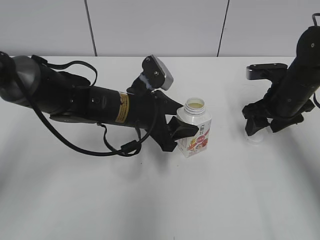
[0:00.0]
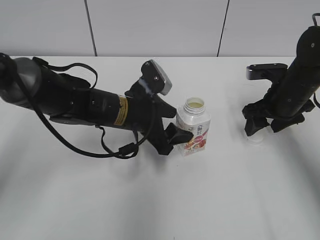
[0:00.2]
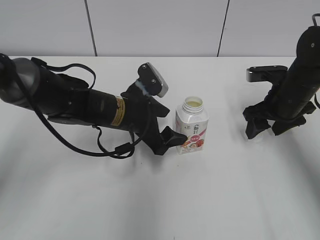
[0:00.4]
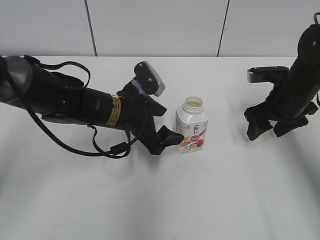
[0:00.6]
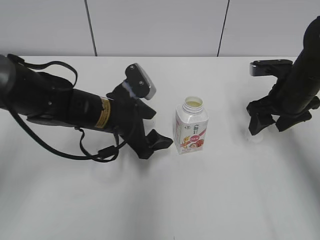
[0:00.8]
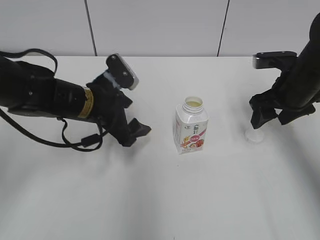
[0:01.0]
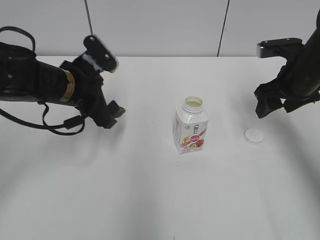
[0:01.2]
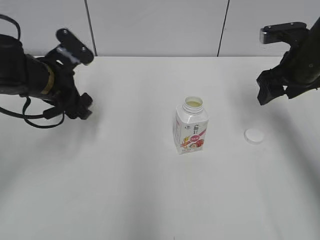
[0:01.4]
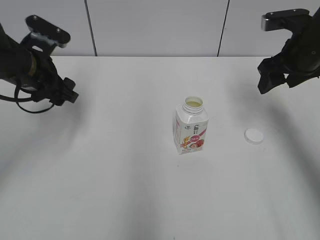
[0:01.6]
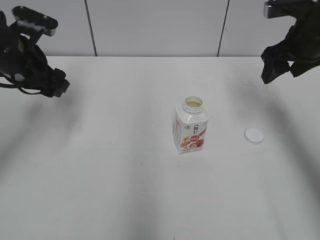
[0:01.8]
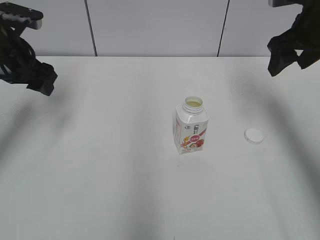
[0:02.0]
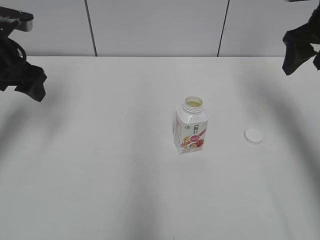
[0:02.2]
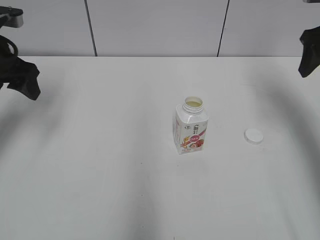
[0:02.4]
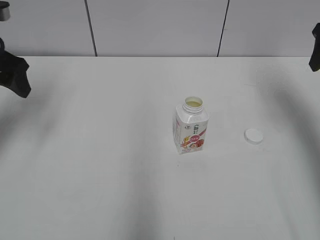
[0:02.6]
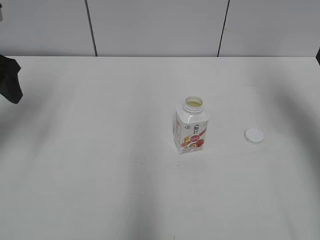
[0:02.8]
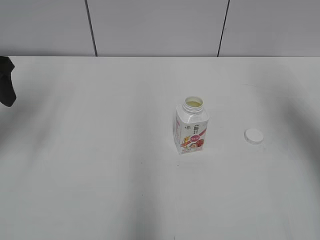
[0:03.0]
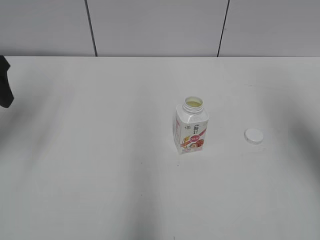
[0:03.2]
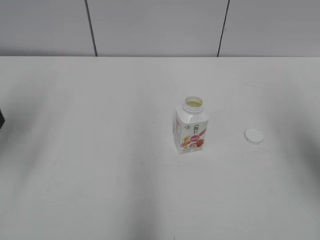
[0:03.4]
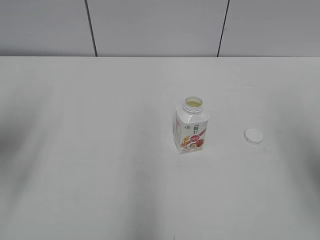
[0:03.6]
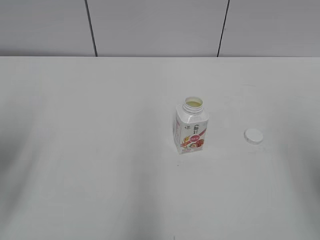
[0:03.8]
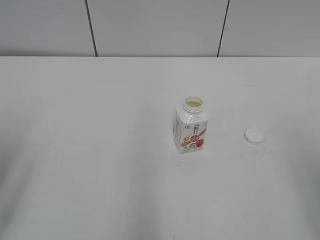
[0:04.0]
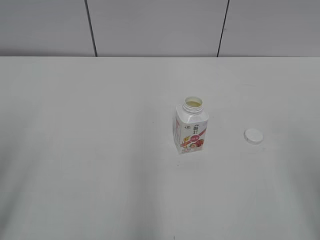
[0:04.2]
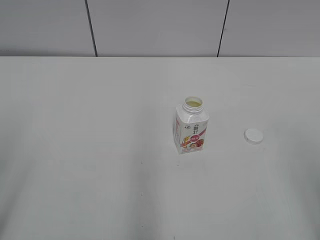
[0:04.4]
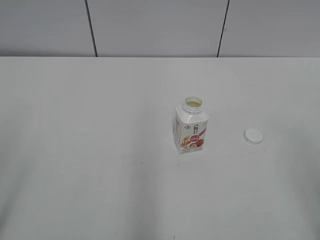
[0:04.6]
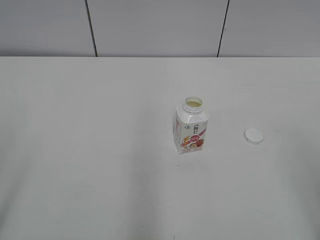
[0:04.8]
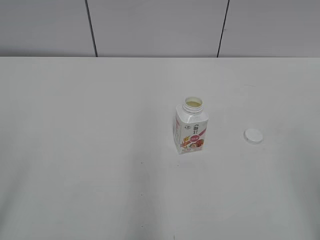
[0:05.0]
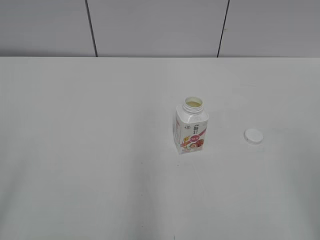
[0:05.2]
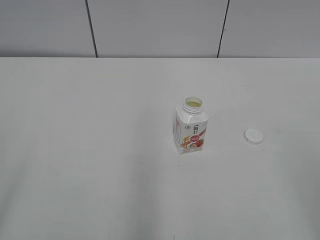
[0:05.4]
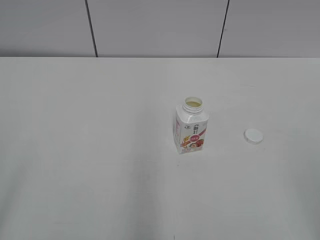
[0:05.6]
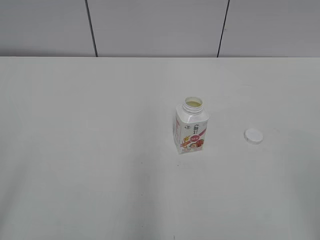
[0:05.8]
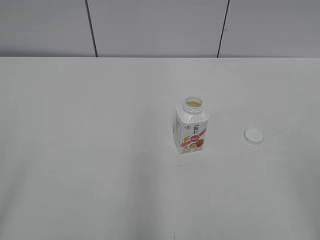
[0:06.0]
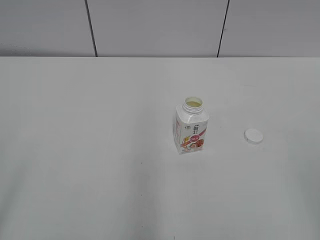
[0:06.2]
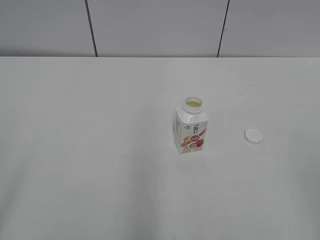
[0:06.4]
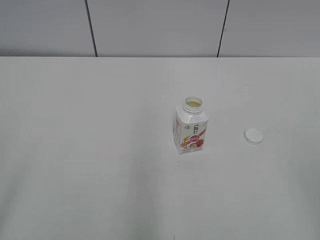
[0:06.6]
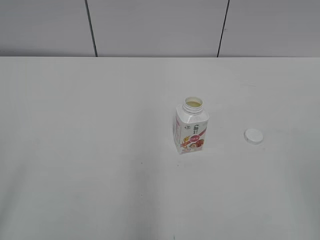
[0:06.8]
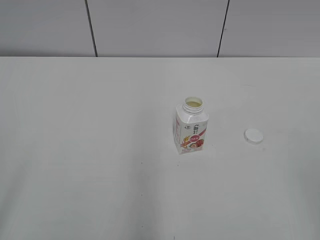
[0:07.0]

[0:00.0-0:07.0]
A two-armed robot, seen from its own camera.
Step, 0:00.2 to 0:00.6: Place the Yili Changqing with the left hand.
0:00.0 to 0:01.4: The left gripper goes about 15 cm to the left and upward, and opens its fingers; the right gripper travels upward by approximately 5 cm.
0:01.4 to 0:02.8: The right gripper travels upward and to the right by some 15 cm. The left gripper moves to the left and upward, approximately 15 cm.
0:02.8 to 0:04.2: Both grippers move backward, about 25 cm.
0:05.6 to 0:07.0: Both grippers stay put.

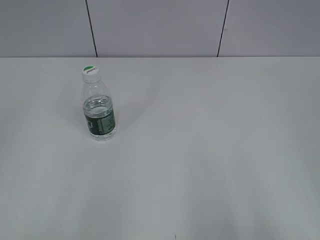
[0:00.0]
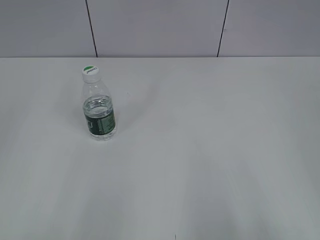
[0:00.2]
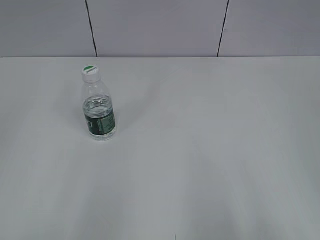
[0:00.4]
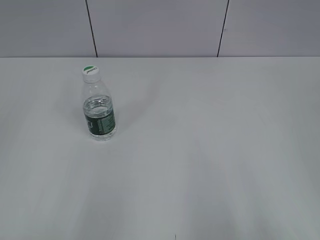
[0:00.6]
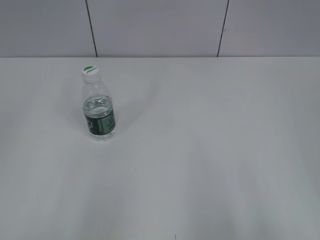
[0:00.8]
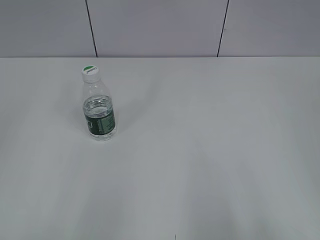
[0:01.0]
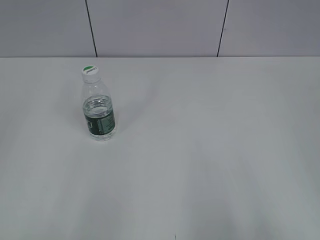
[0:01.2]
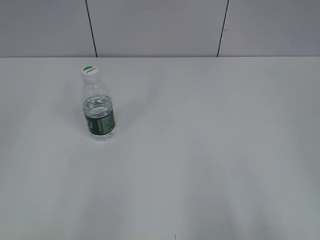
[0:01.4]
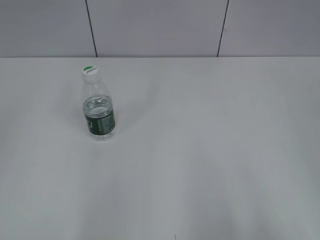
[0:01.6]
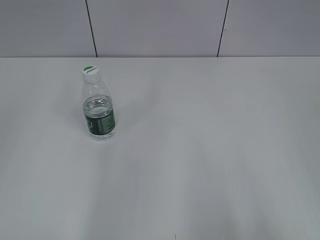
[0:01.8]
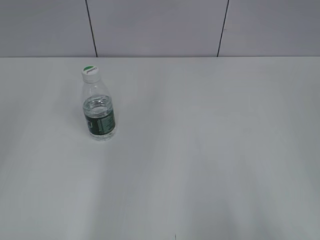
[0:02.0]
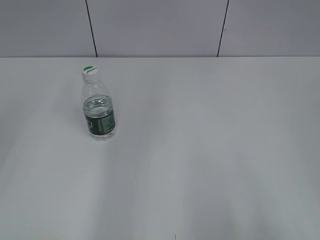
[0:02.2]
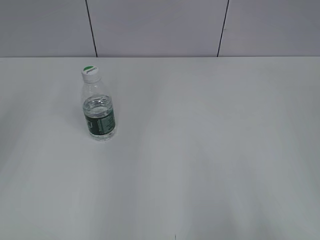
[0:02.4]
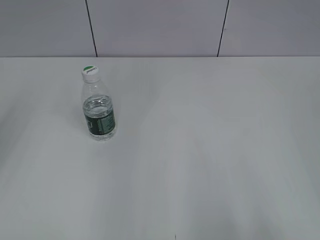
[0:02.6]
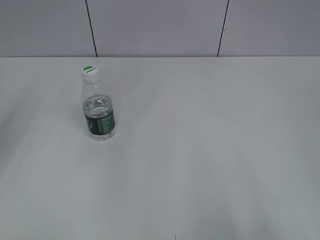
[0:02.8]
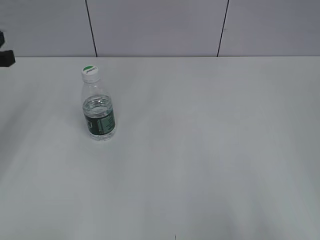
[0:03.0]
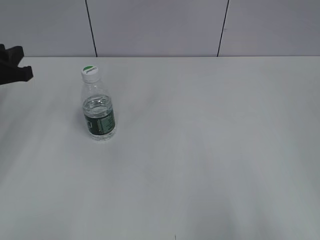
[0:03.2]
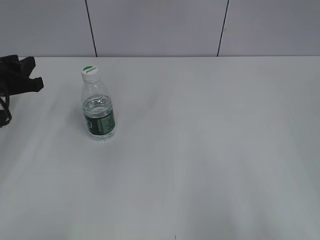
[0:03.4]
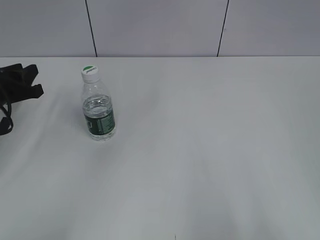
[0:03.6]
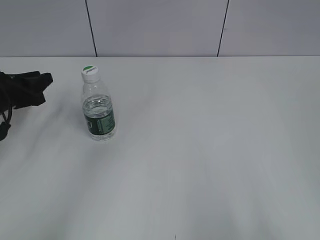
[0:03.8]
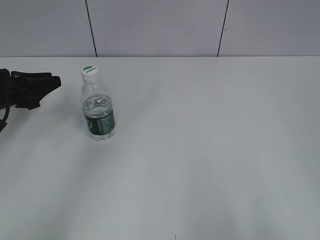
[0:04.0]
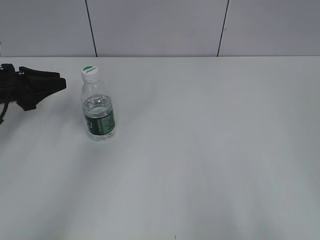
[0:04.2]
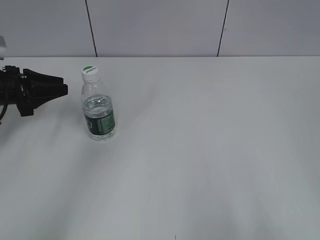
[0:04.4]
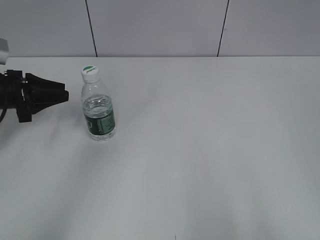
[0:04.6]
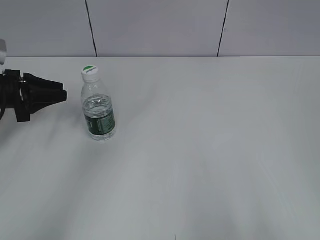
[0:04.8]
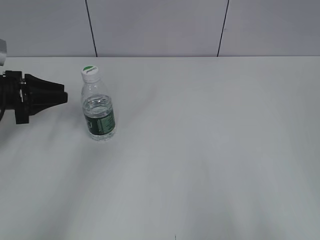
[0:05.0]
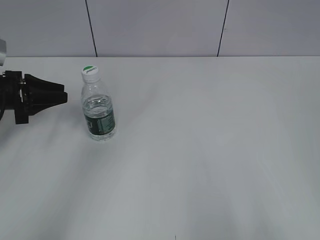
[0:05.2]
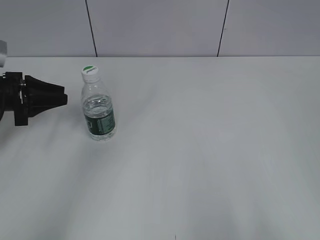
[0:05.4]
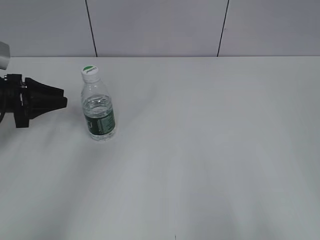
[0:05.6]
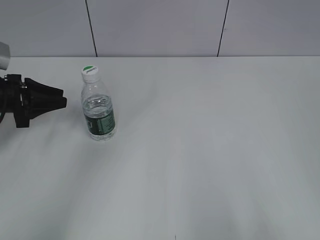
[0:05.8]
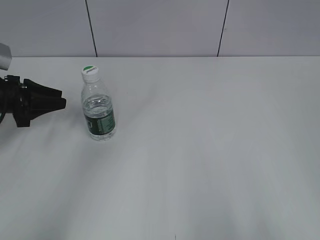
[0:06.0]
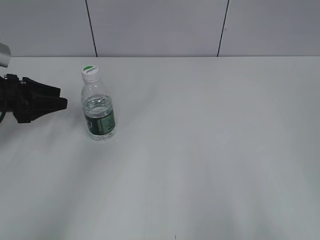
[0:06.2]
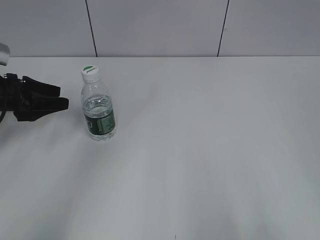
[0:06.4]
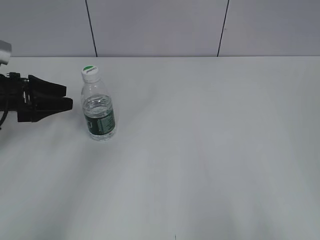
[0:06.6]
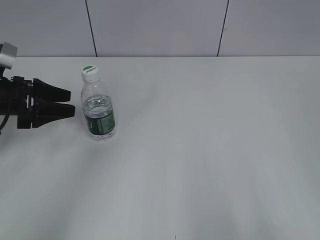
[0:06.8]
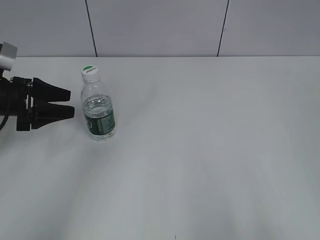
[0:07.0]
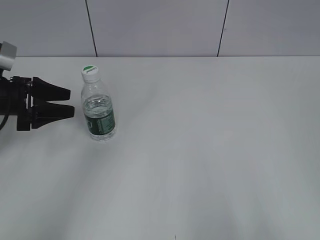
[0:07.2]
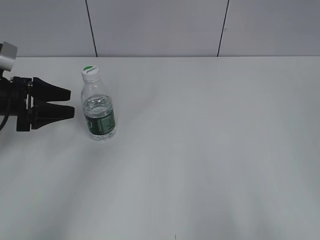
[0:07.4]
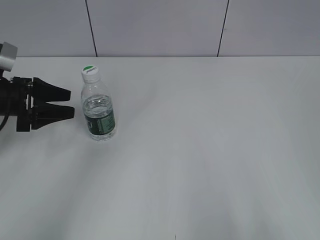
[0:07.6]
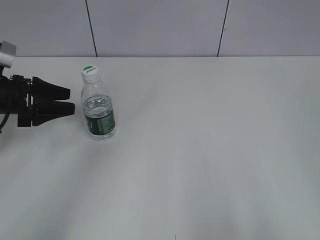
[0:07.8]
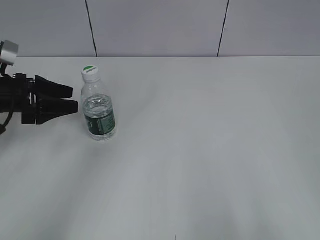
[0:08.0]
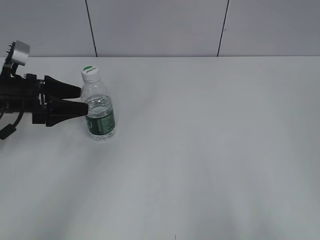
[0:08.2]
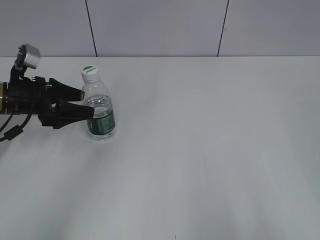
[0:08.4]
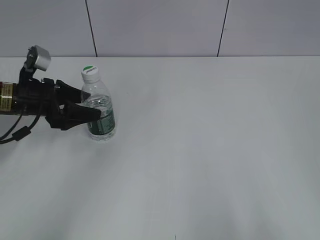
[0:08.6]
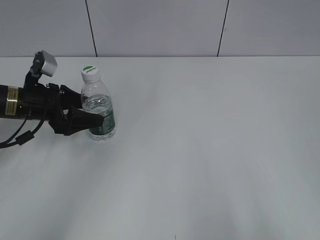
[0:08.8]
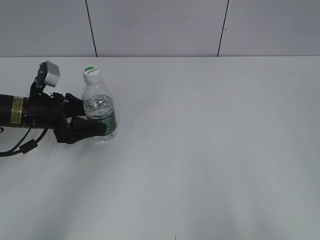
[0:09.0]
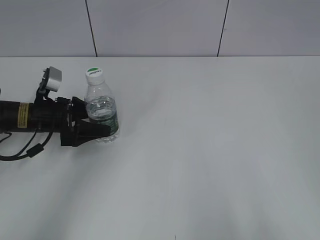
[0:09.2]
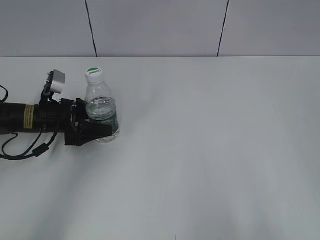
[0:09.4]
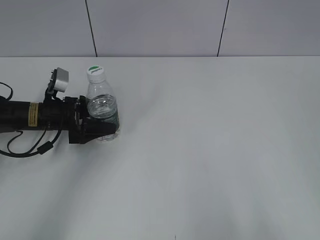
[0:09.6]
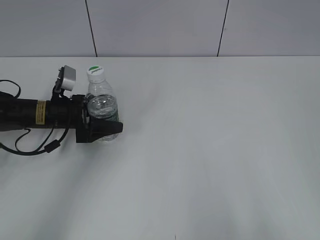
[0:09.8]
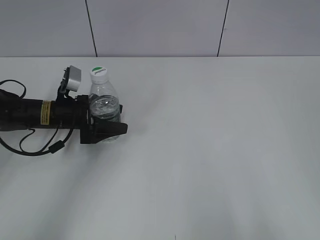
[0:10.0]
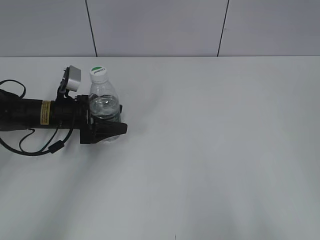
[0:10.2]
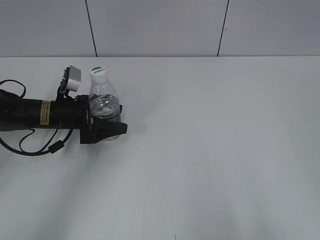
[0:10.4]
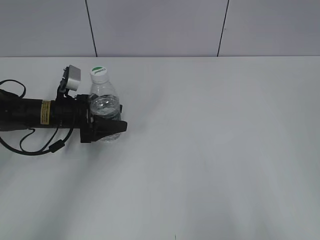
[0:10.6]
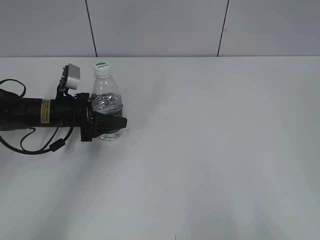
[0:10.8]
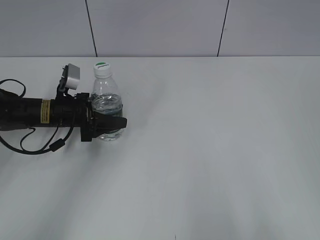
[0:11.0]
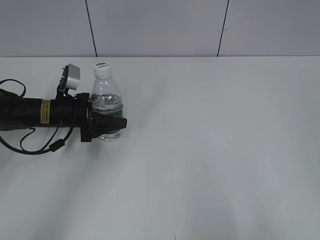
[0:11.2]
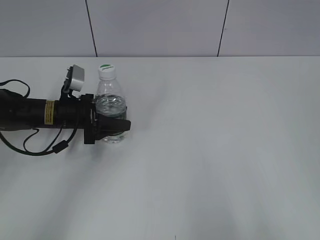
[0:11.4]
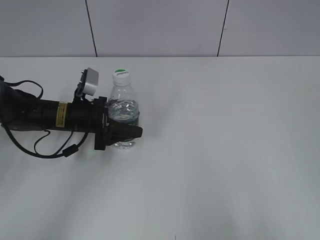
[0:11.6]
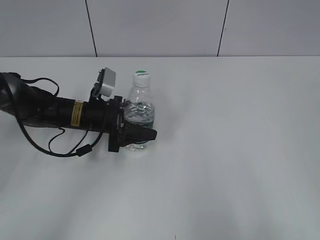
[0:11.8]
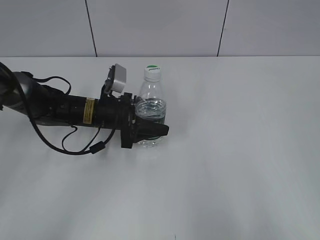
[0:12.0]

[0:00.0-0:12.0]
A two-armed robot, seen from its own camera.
Step, 0:00.0 to 0:10.6: Grasp the bottle and move it to the center of the table with the left gripper.
0:03.0 to 0:04.4: The left gripper moves downward and forward, roughly 10 cm.
0:04.4 to 0:06.0: The grippers stay close to where they were, moving slightly.
0:06.0 to 0:07.6: The left gripper opens.
0:07.6 to 0:09.0: The left gripper moves to the right, about 5 cm.
0:09.0 to 0:10.4: The left gripper shifts by approximately 5 cm.
0:10.4 to 0:12.0: The left gripper travels to the right by roughly 10 cm, and closes up.

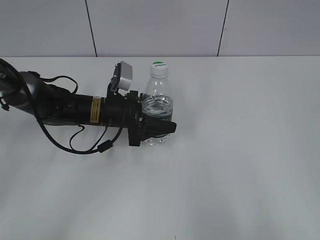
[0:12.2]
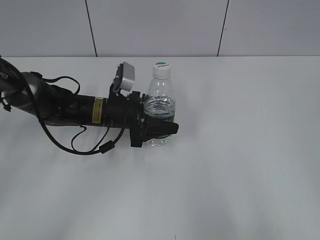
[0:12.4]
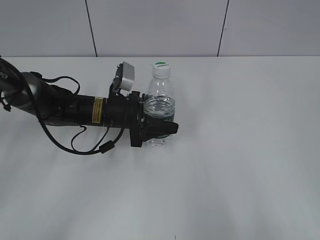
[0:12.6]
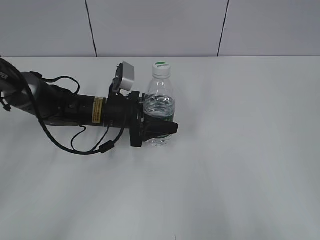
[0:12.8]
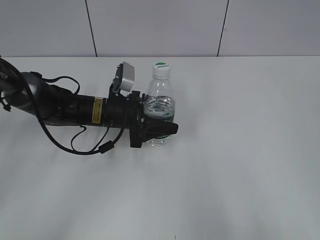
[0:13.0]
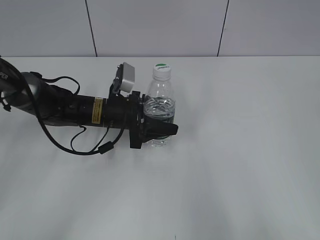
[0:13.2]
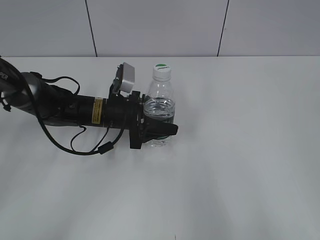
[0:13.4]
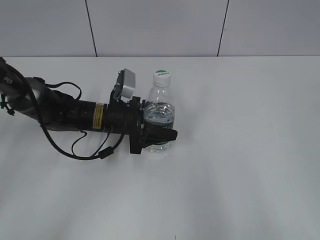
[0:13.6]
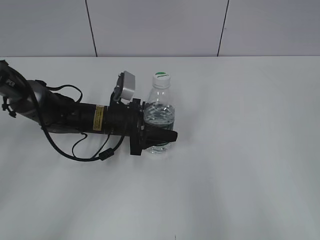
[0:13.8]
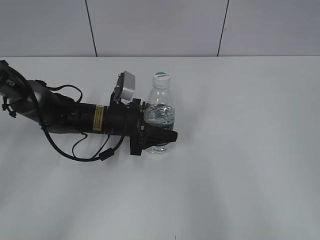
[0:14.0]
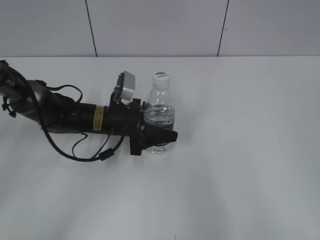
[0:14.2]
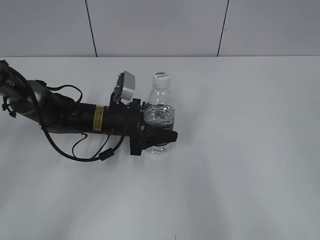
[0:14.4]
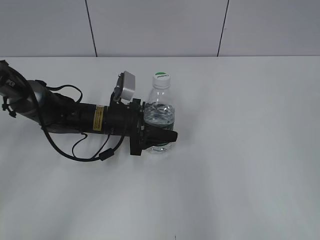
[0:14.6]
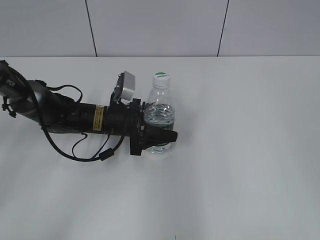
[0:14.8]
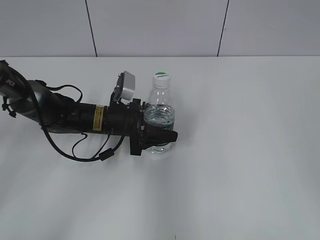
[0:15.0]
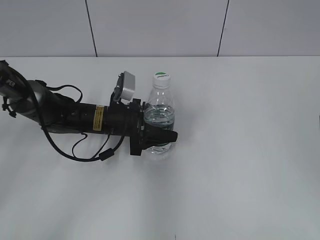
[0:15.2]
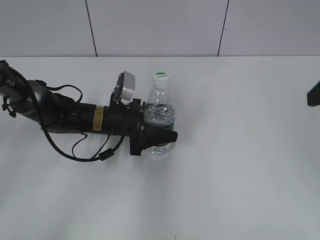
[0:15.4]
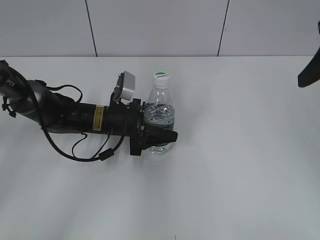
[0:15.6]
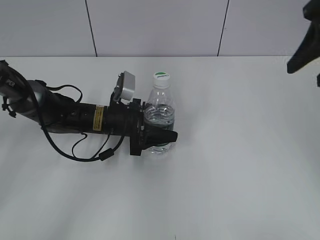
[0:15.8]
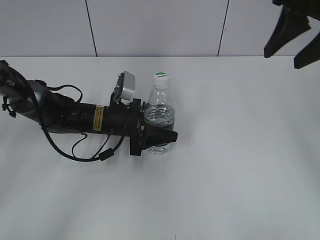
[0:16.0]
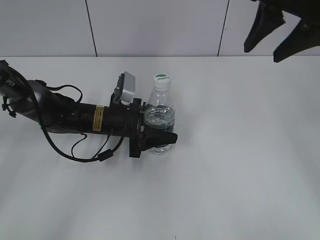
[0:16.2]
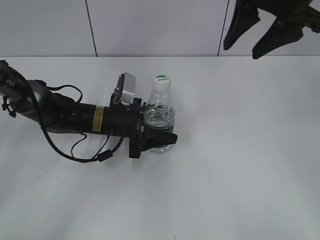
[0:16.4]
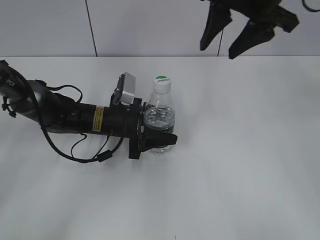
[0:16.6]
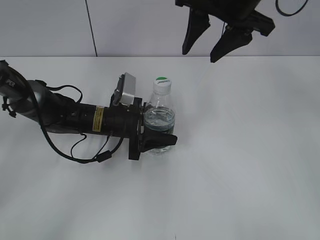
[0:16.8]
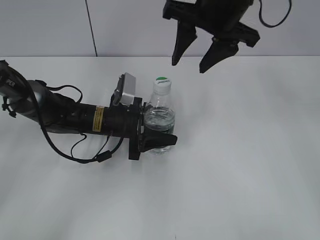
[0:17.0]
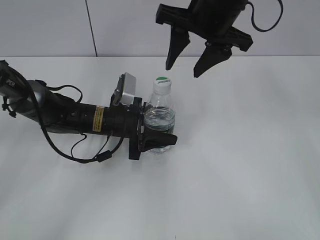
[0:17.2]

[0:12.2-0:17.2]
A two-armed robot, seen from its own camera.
0:12.2 to 0:13.8: The grippers move only a little.
0:13.8 to 0:15.6: The right gripper heads forward, covering about 20 cm.
0:15.6 to 0:17.2: The right gripper goes some 20 cm to the left and forward.
